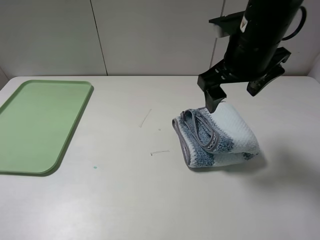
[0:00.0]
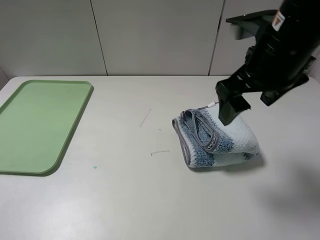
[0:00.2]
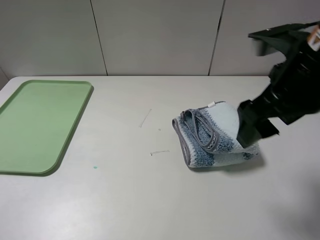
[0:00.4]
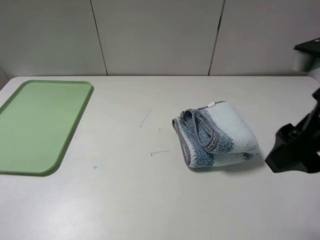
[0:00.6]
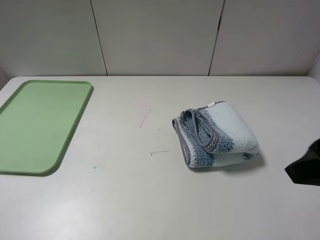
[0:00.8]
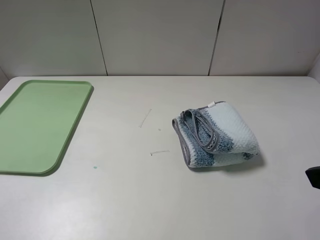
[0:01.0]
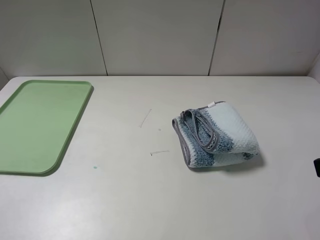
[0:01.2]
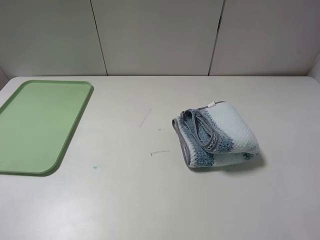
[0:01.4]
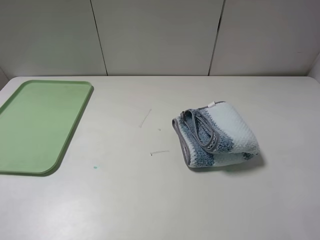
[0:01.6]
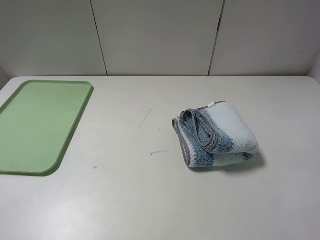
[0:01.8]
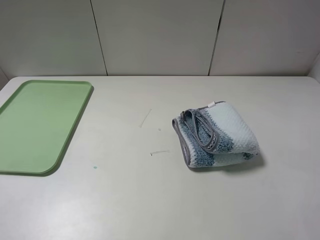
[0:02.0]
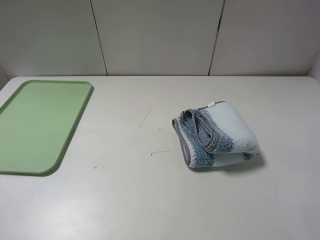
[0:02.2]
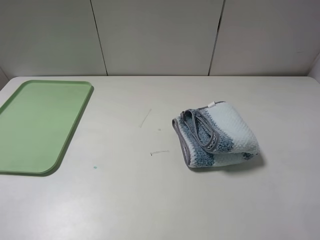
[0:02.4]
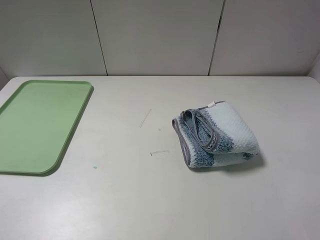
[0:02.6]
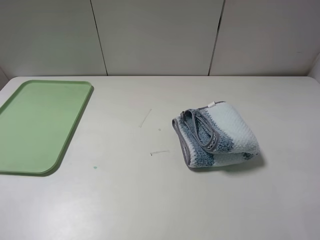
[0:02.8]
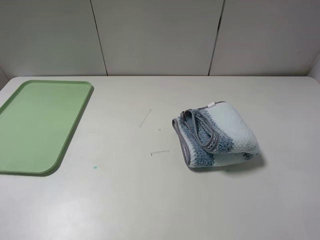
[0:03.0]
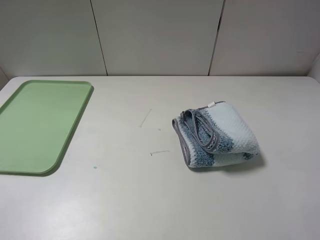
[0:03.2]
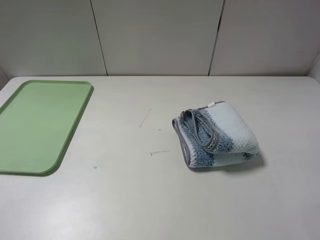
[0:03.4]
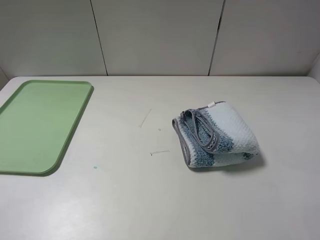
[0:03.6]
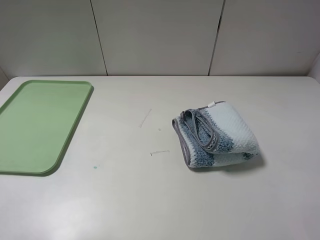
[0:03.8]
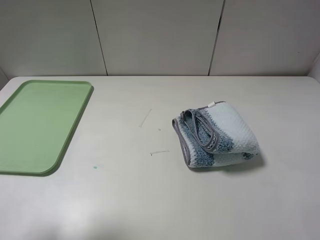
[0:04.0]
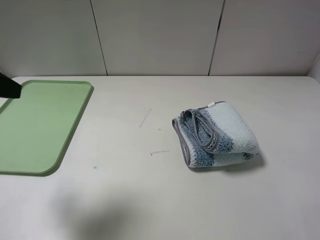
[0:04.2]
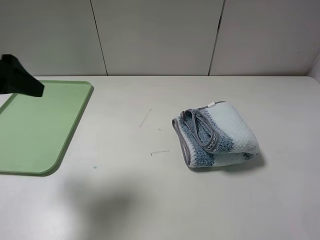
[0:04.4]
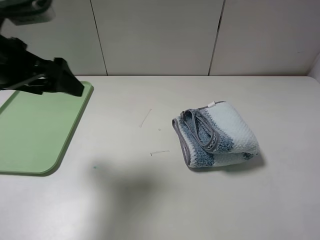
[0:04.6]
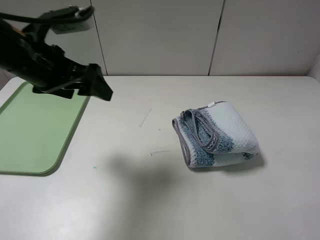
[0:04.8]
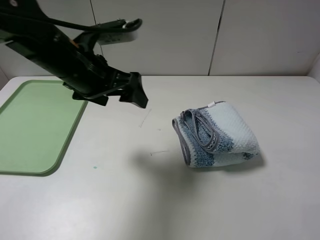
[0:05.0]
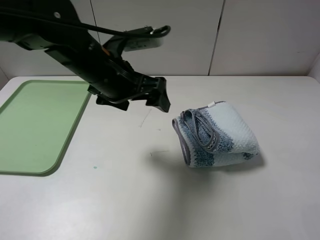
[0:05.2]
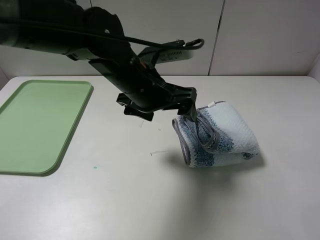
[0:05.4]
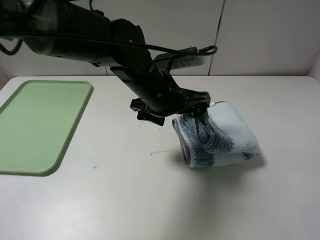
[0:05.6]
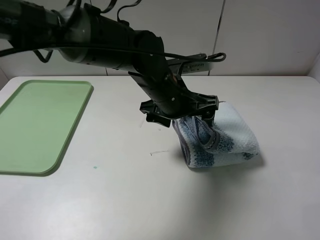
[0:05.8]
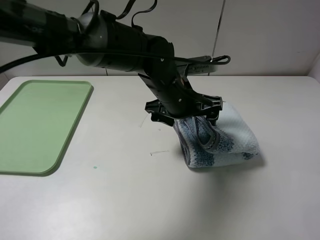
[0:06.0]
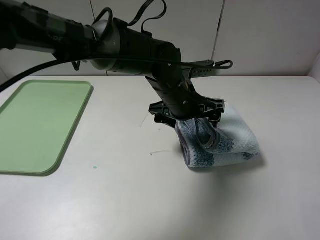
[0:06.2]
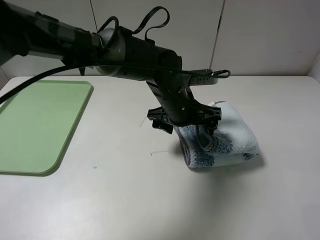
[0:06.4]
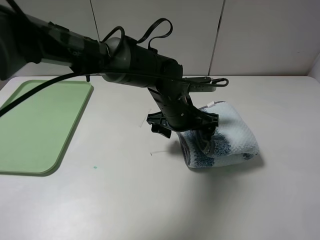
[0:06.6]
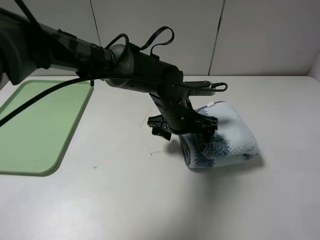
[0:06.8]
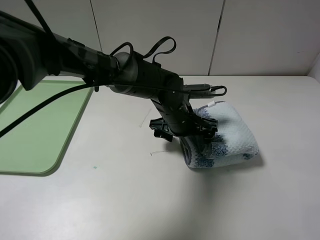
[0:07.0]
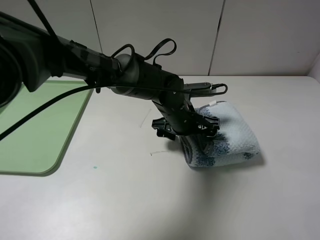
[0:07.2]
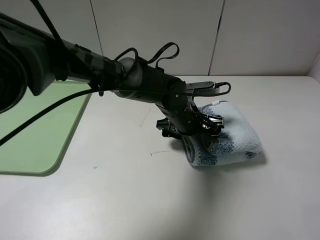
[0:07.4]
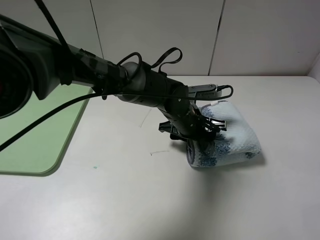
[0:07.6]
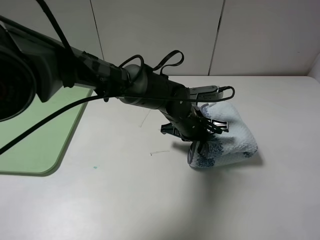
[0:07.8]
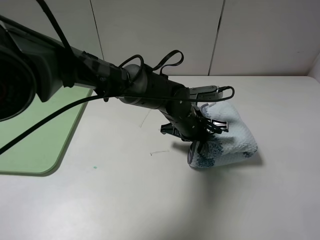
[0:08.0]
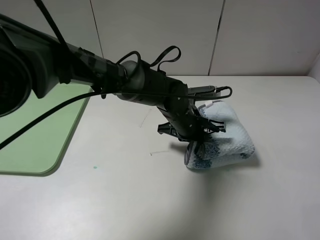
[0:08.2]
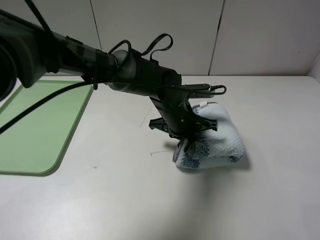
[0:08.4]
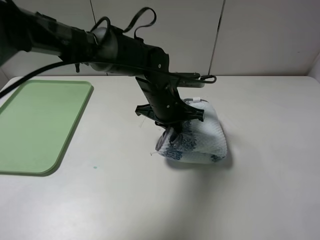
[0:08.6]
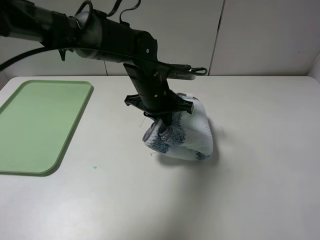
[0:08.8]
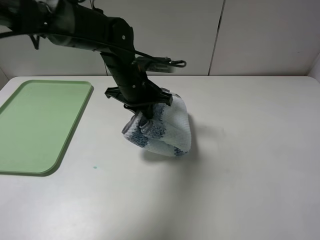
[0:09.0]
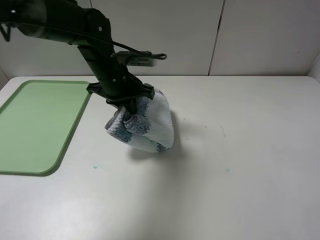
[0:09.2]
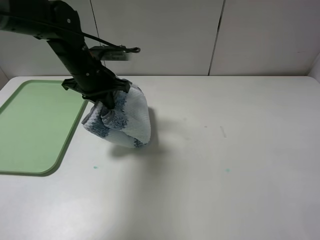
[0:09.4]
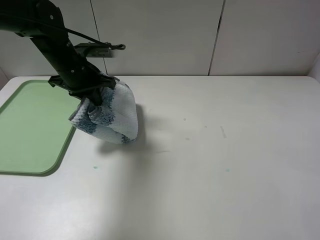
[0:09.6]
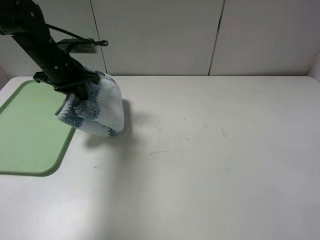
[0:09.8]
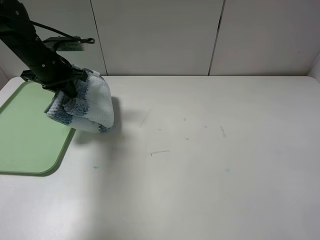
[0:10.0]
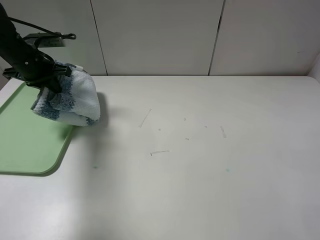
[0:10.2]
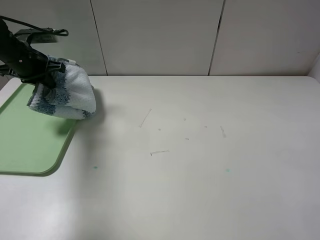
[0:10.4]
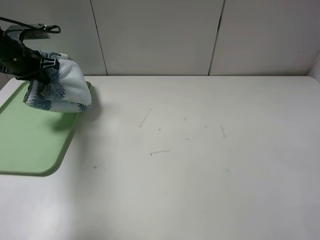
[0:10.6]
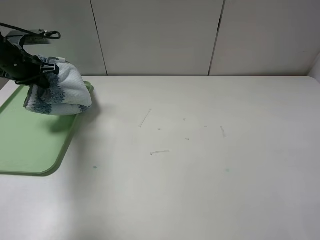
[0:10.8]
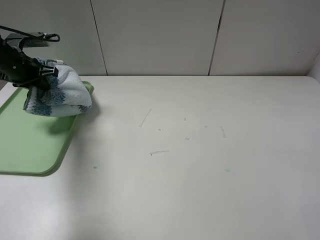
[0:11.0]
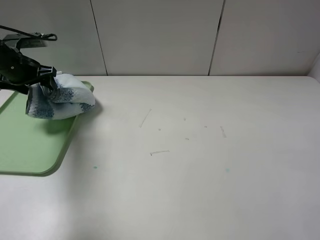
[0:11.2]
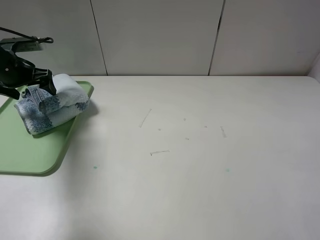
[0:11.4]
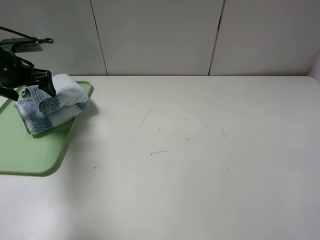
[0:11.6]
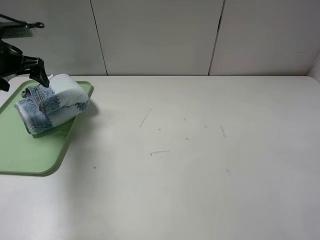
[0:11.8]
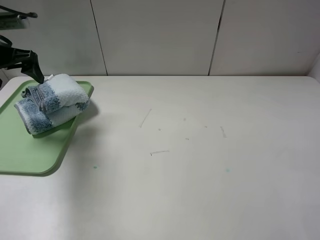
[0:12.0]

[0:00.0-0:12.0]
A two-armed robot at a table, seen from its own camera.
Step, 0:01.0 to 0:08.0: Grasp the blue white towel with the left gripper.
0:00.0 to 0:01.6: The right gripper shifts roughly 30 cm backward and to the right.
0:03.0 to 0:04.4: The left gripper moves forward, approximately 20 cm.
0:04.4 to 0:06.0: The left gripper is displaced to the right and downward by some 35 cm.
0:06.0 to 0:07.6: The left gripper shifts some 10 cm downward, and closes its fingers.
0:07.6 to 0:09.0: The left gripper heads to the left and upward, covering roughly 15 cm, and closes.
0:09.0 to 0:10.4: The left gripper shifts approximately 25 cm to the left.
0:10.4 to 0:12.0: The left gripper travels upward and backward by some 5 cm, and opens its fingers.

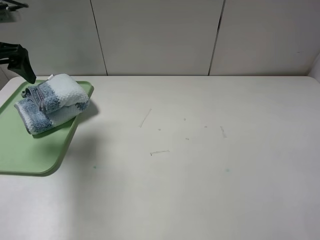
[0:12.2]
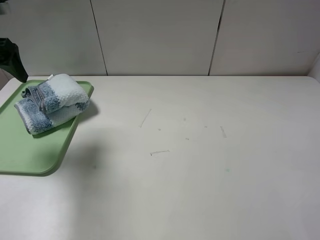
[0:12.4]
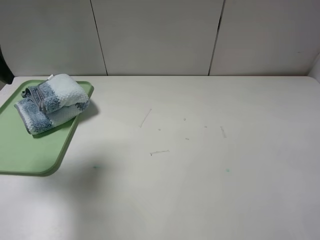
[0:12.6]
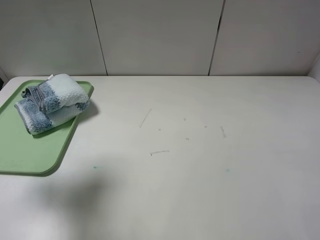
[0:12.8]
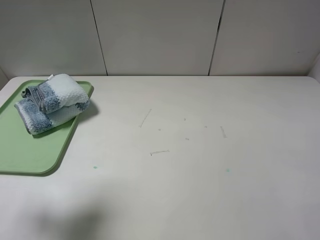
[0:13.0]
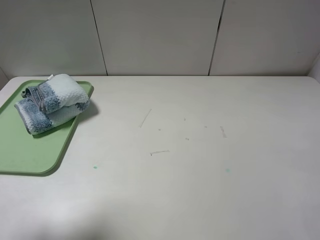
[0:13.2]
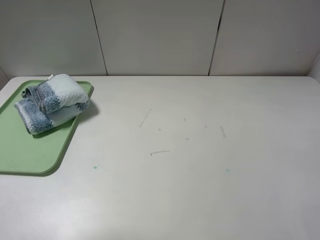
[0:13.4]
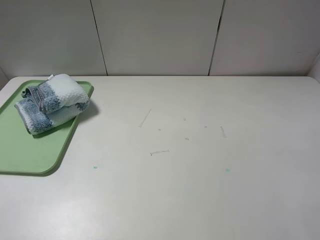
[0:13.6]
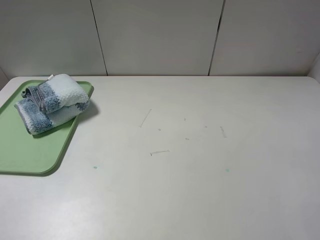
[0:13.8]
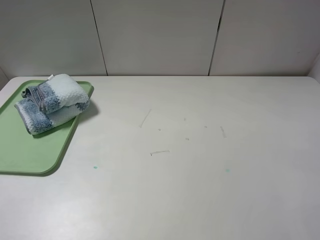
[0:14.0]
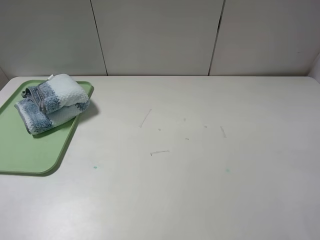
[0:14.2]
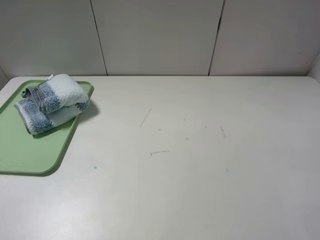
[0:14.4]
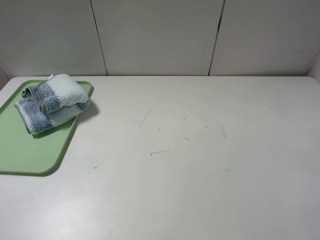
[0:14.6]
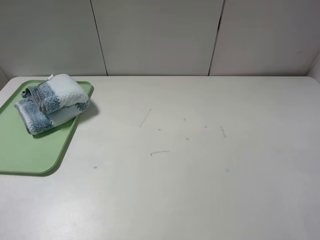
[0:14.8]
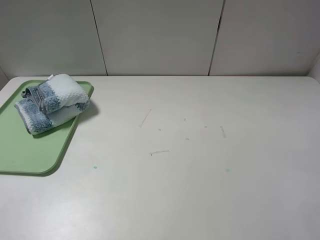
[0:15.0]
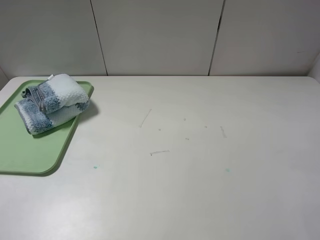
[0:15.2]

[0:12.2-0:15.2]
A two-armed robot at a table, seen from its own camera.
0:12.2 to 0:13.8: The left gripper travels backward by some 35 cm.

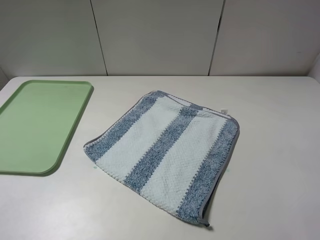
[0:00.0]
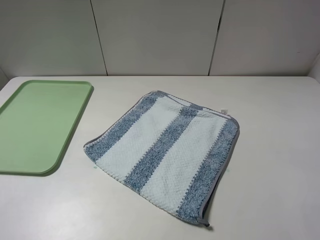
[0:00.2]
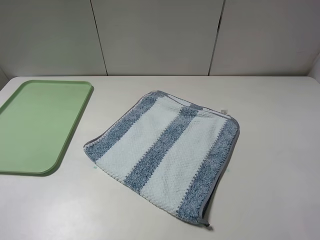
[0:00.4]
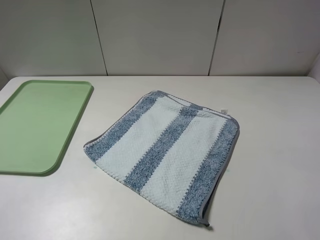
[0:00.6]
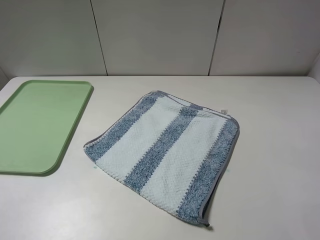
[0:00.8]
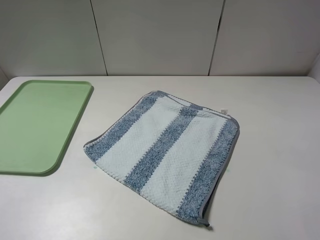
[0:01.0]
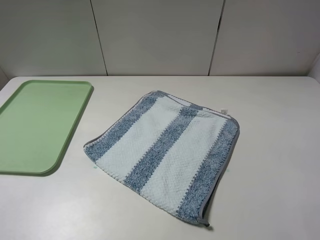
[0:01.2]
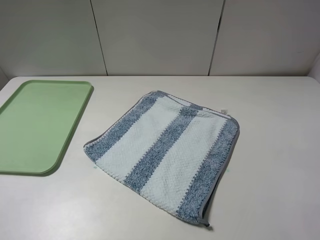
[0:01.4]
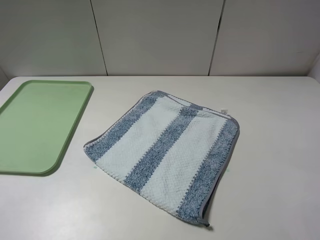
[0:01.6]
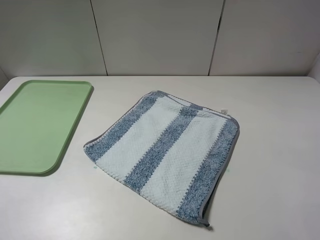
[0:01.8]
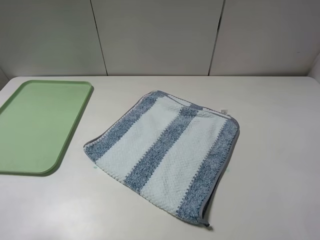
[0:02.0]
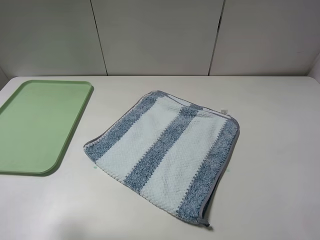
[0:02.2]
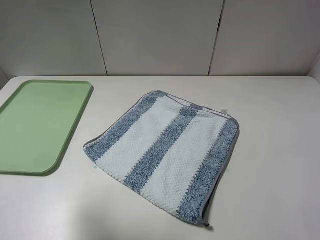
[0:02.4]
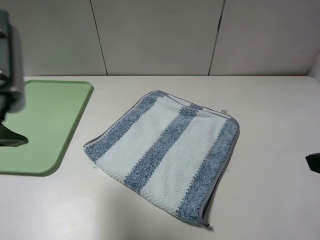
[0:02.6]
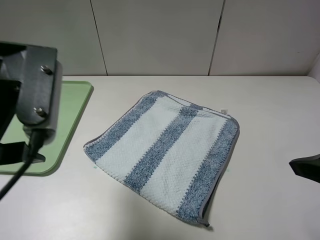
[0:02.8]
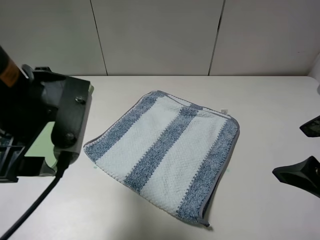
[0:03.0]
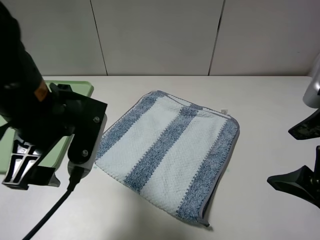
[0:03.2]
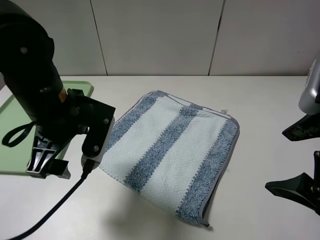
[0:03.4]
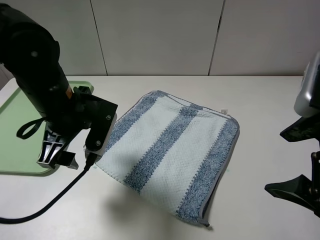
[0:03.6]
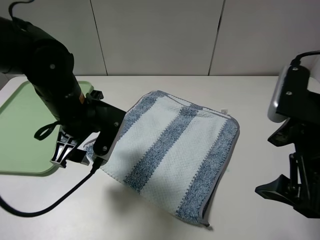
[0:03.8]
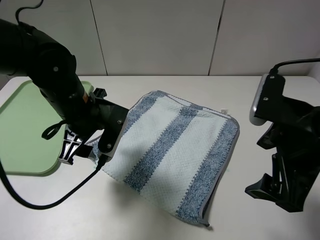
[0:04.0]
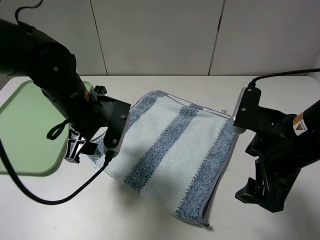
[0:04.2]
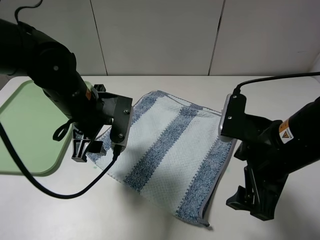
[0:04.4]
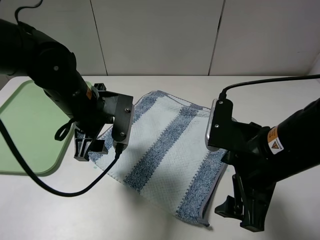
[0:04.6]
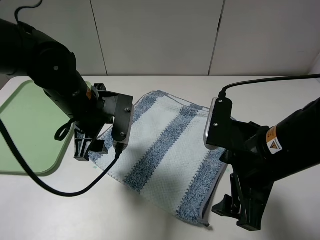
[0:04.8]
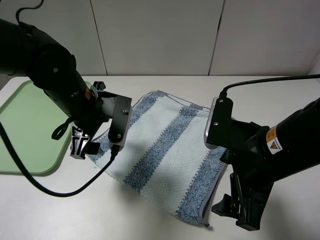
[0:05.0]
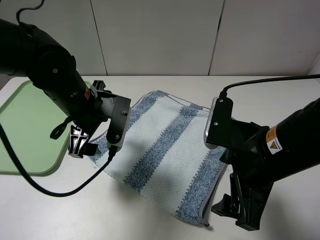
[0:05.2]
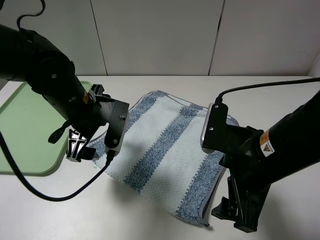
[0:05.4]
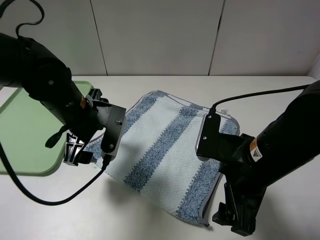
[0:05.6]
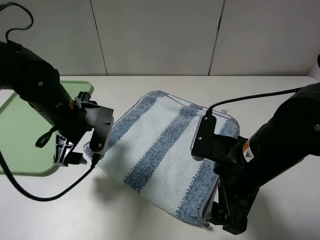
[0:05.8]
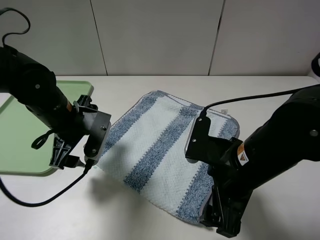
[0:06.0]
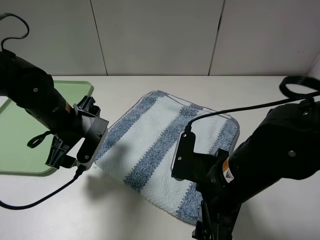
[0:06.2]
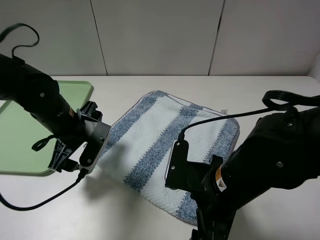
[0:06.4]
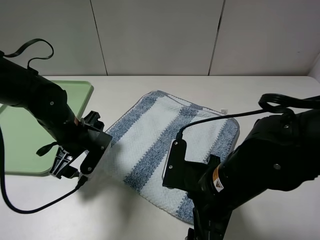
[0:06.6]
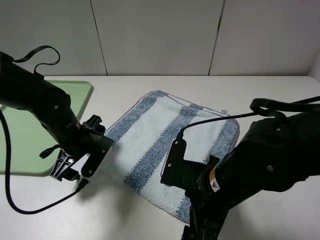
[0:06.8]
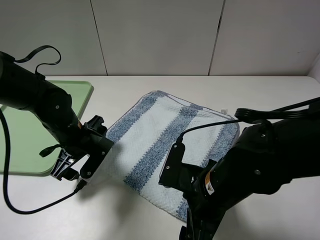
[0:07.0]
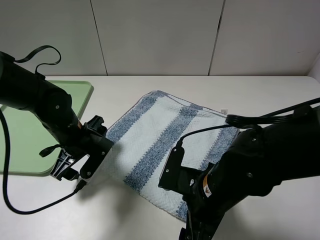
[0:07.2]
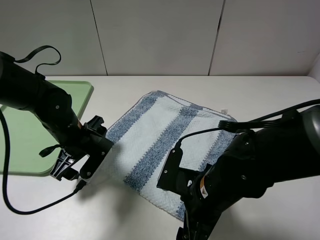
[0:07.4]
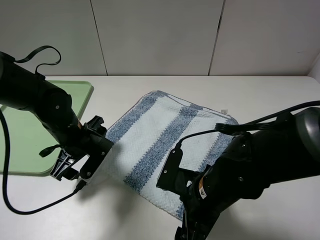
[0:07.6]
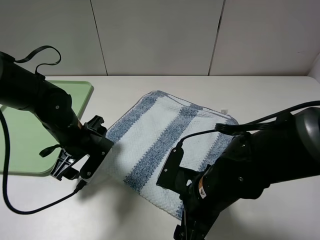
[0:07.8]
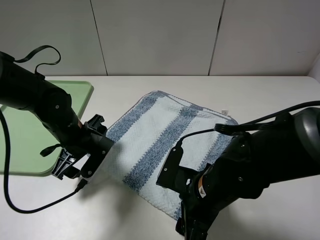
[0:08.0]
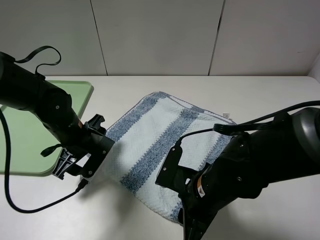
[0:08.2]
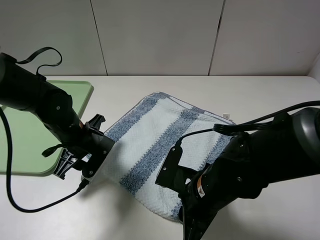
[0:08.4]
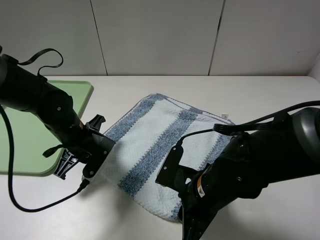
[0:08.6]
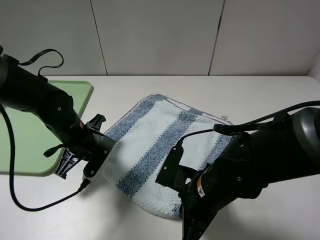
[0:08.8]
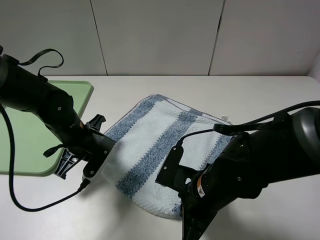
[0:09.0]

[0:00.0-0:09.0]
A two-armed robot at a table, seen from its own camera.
0:00.0 to 0:01.6: Neither gripper changes place.
0:01.6 to 0:03.0: The right gripper shifts roughly 15 cm forward and to the left. The left gripper moves forward and to the right, roughly 25 cm.
0:03.0 to 0:04.4: The left gripper travels downward and forward by about 10 cm, while the right gripper travels to the left and downward by about 10 cm.
0:04.4 to 0:06.0: The right gripper changes place by about 5 cm, while the left gripper ends up roughly 5 cm from where it was.
0:06.0 to 0:07.6: Both grippers travel together downward, roughly 5 cm.
0:07.6 to 0:09.0: The left gripper closes, while the right gripper closes up.
